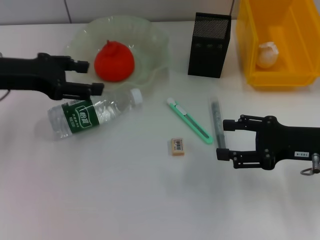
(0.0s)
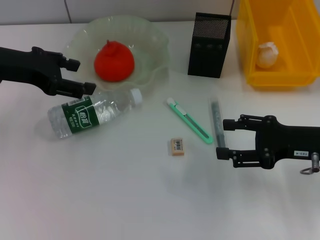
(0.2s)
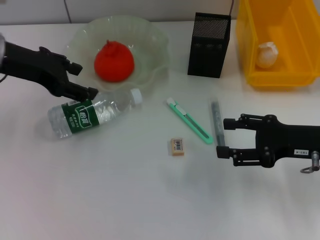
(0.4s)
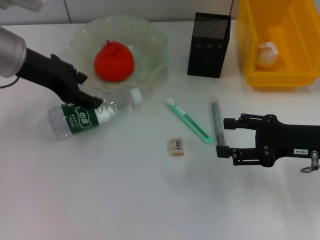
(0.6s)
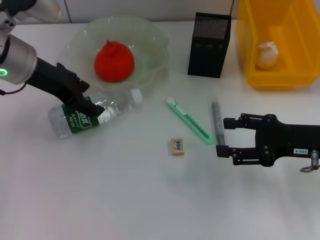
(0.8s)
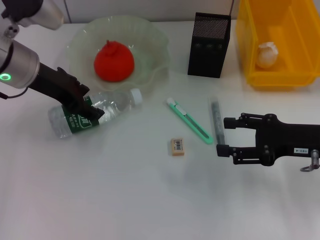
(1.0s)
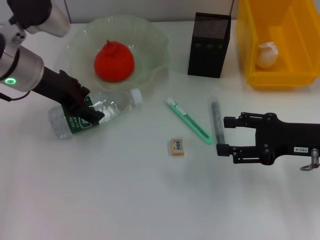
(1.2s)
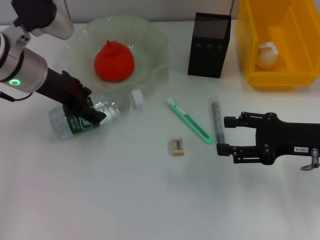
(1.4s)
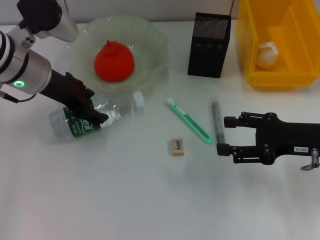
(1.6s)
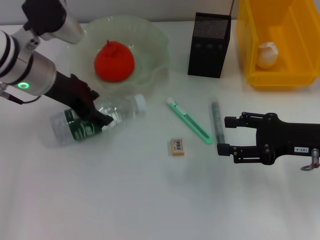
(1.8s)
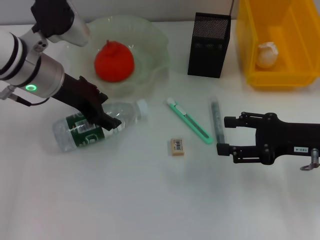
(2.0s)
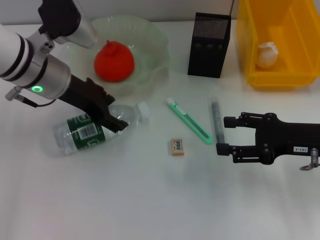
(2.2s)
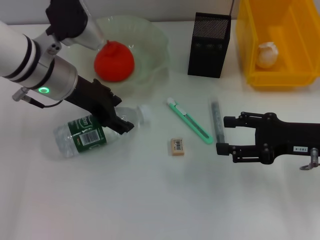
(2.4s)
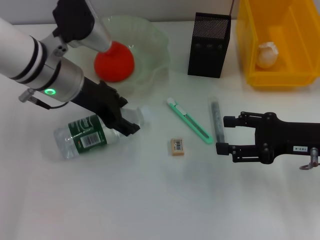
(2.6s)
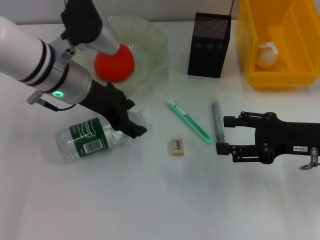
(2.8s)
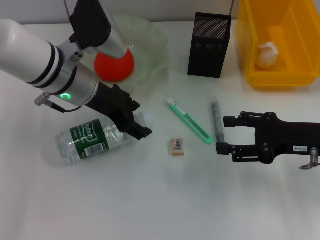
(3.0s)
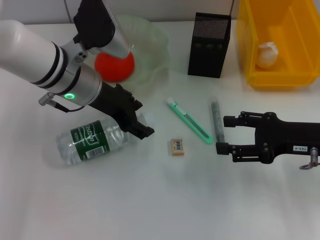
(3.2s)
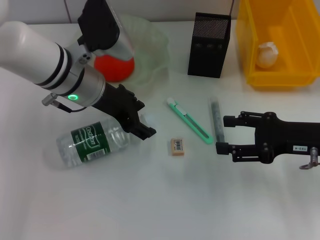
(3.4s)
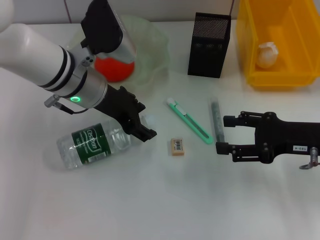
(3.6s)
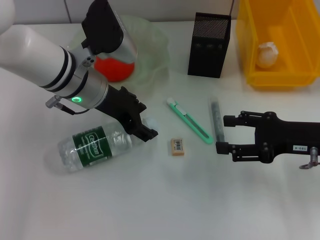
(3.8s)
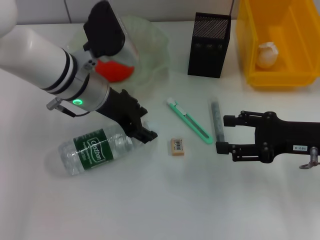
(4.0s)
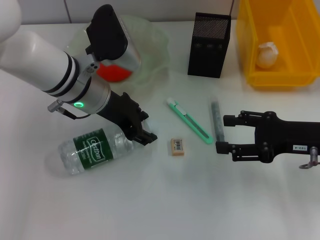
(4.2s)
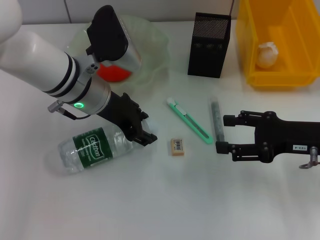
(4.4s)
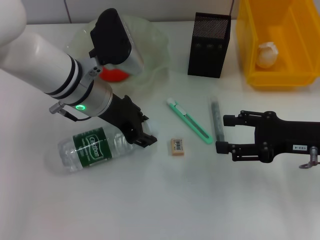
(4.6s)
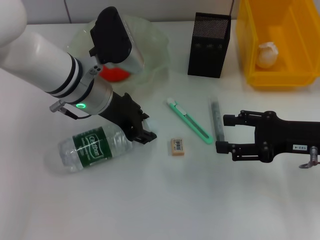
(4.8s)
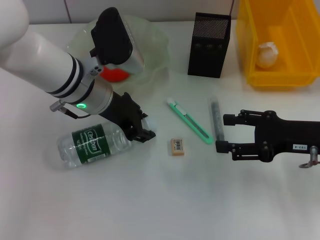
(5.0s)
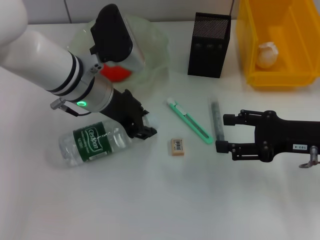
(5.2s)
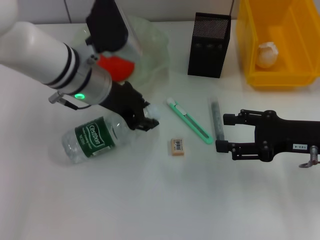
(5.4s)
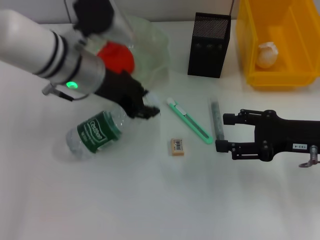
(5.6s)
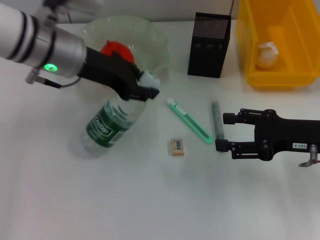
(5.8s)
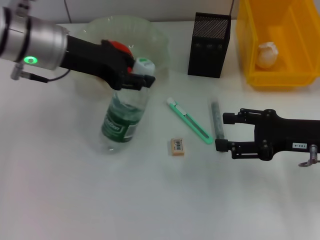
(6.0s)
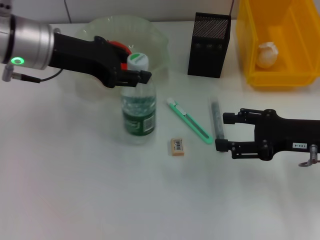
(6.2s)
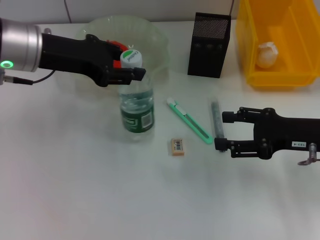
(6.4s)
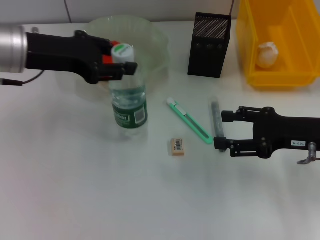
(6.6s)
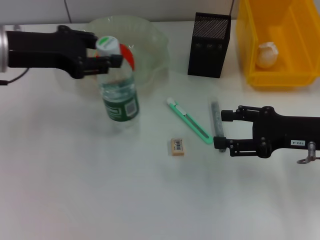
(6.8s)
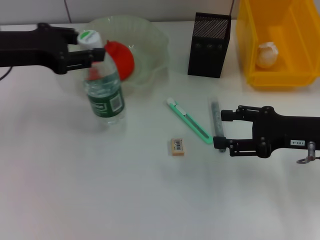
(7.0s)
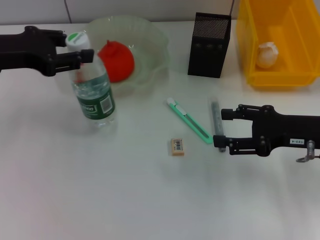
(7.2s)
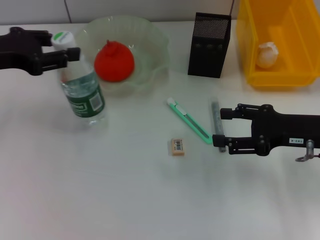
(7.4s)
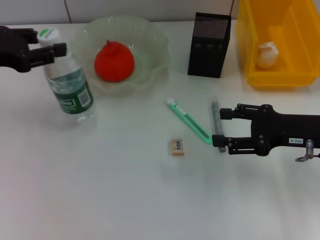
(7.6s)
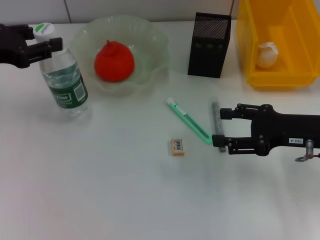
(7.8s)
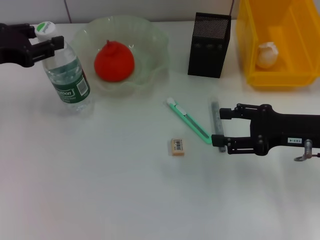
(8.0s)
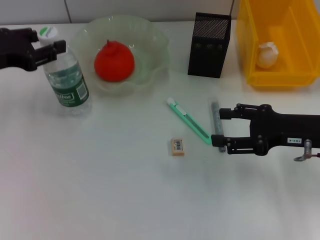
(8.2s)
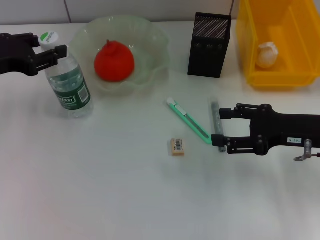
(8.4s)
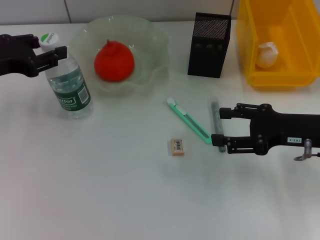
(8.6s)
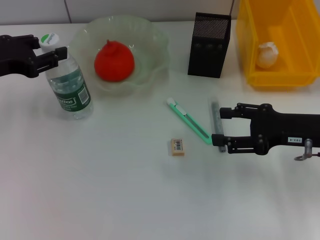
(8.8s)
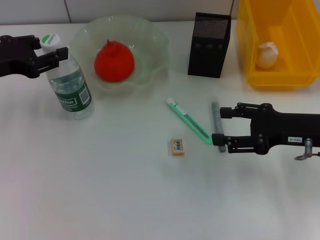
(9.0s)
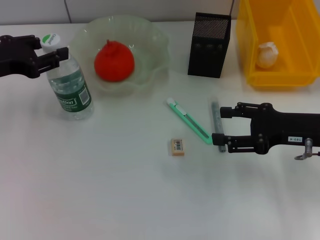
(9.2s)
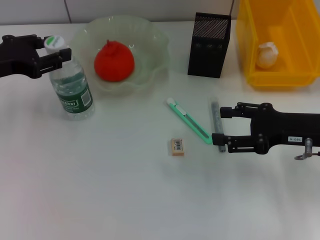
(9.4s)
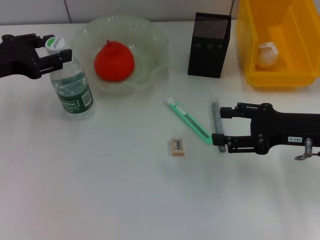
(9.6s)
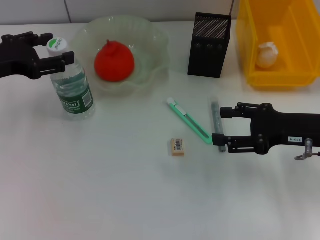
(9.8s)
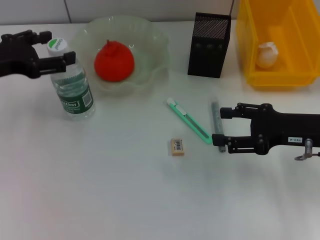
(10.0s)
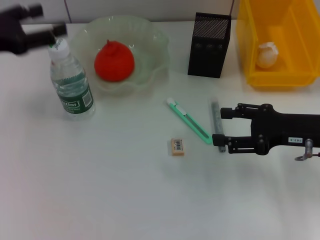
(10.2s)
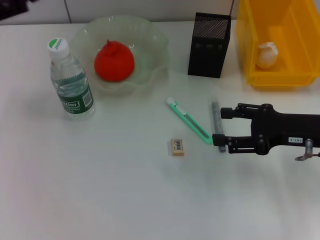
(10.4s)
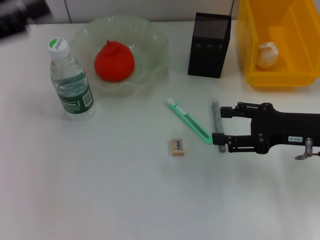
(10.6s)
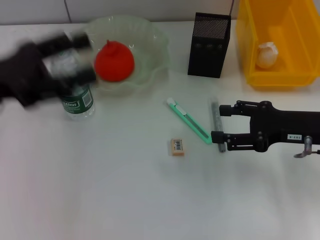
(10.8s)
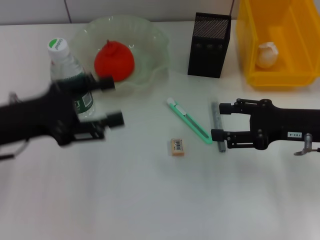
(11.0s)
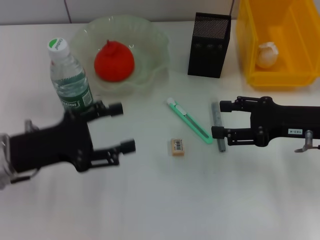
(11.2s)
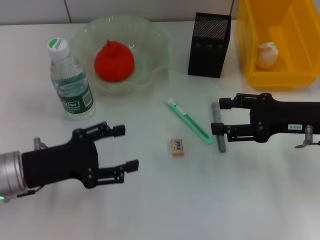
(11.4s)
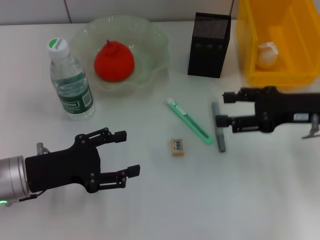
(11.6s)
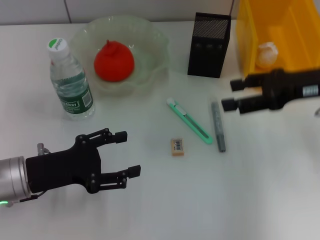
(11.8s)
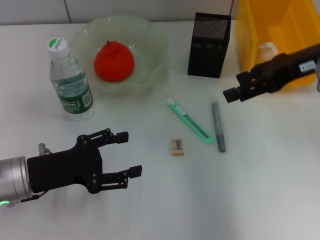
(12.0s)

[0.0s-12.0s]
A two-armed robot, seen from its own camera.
Step, 0.0s to 5.2s: Grab the water bottle with the left hand.
Step, 5.4s to 9.6s: Place the water bottle on the table with the left hand.
0.0s to 1.6s: The left gripper moves to the right, about 5 cm.
1.6s to 3.0s: The left gripper moves to the right, roughly 5 cm.
3.0s to 4.4s: The grippers move only a little.
4.4s to 6.0s: The left gripper goes about 10 cm upward and to the left.
6.0s to 7.6s: The left gripper goes some 15 cm to the left.
7.6s to 9.0s: The grippers stay close to where they were, moving slightly.
9.0s to 10.4s: The left gripper heads upward, covering about 5 cm, and opens up.
10.4s to 12.0s: The left gripper is displaced downward and to the right by approximately 20 cm. Meanwhile the right gripper shifts about 15 cm upward and forward.

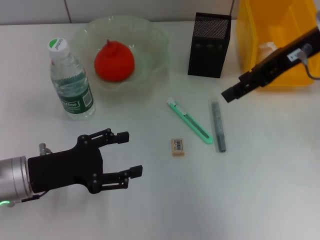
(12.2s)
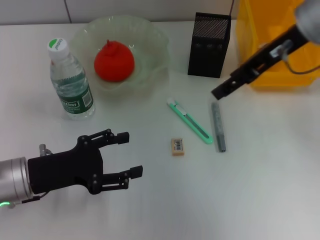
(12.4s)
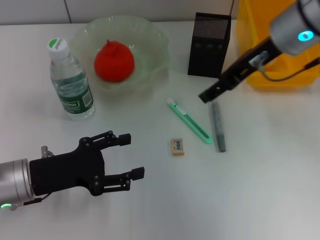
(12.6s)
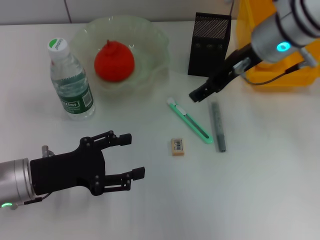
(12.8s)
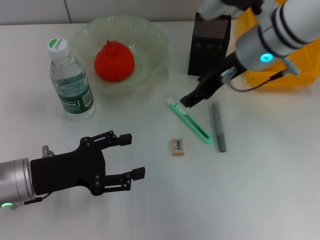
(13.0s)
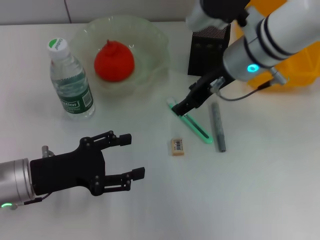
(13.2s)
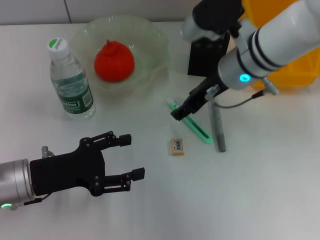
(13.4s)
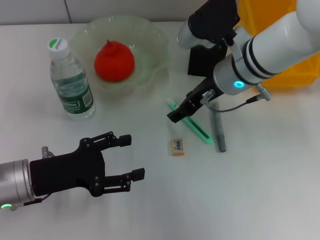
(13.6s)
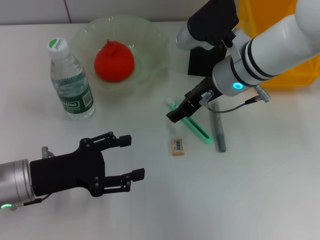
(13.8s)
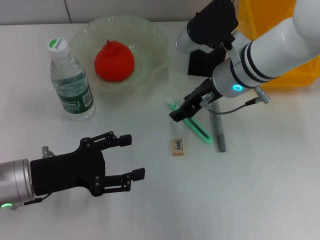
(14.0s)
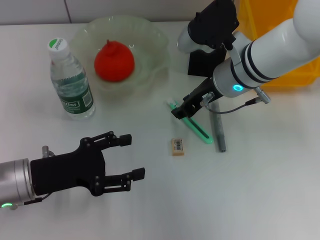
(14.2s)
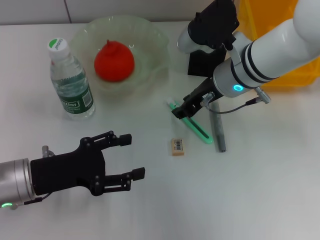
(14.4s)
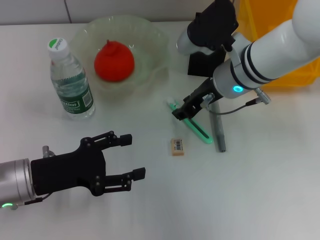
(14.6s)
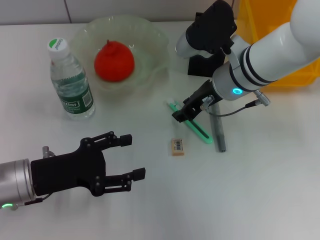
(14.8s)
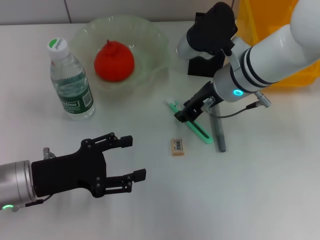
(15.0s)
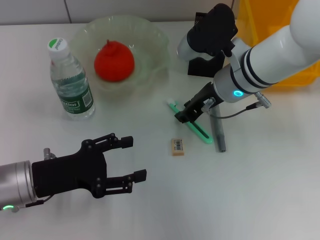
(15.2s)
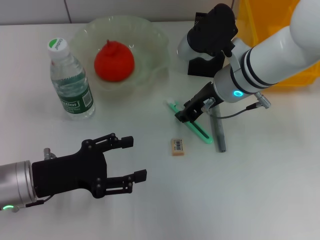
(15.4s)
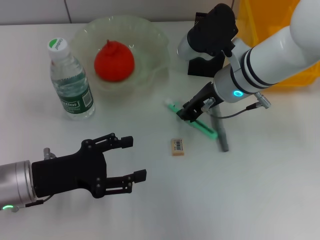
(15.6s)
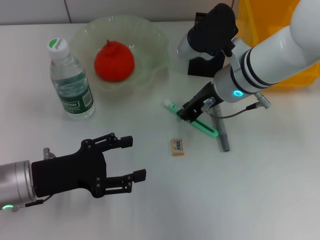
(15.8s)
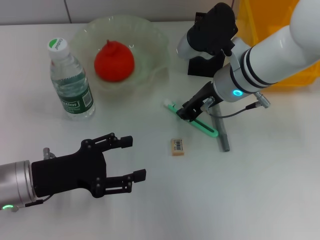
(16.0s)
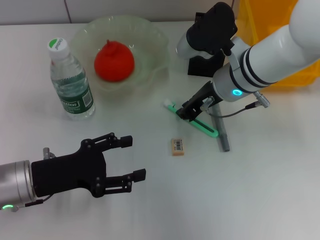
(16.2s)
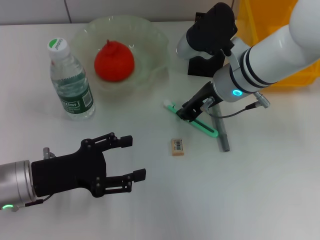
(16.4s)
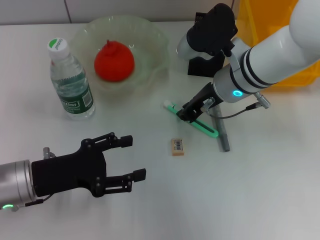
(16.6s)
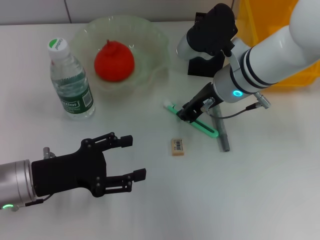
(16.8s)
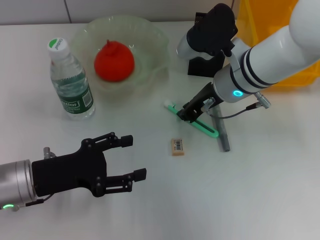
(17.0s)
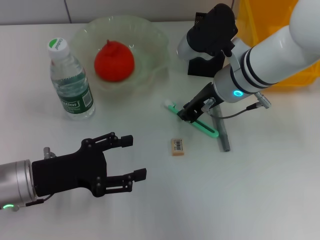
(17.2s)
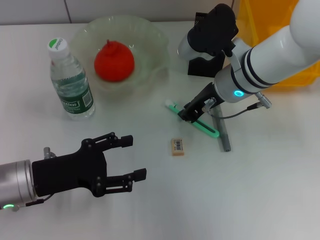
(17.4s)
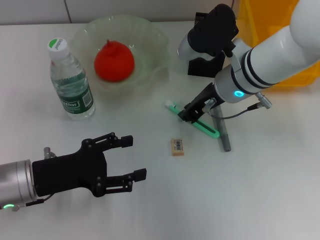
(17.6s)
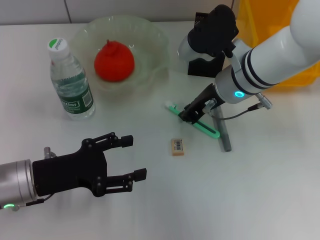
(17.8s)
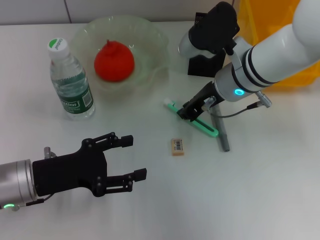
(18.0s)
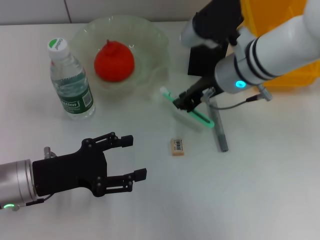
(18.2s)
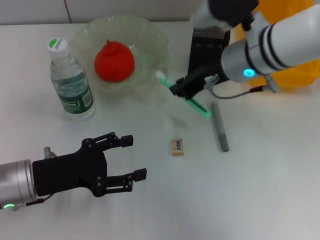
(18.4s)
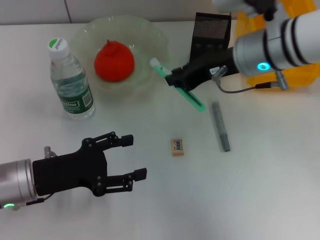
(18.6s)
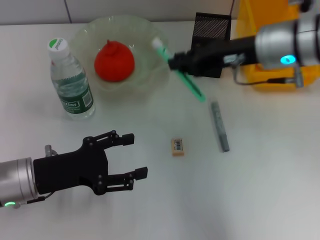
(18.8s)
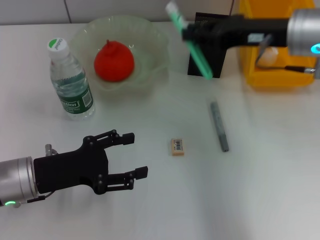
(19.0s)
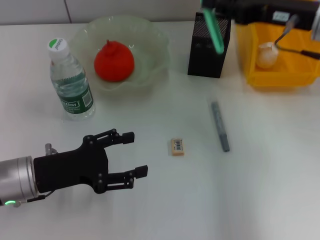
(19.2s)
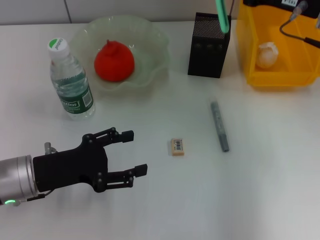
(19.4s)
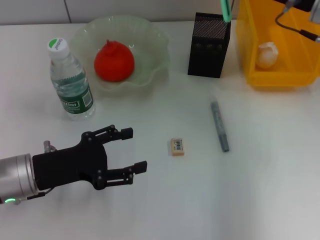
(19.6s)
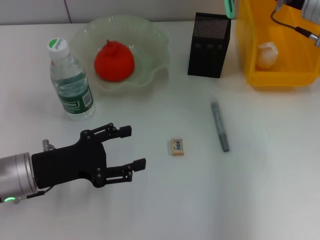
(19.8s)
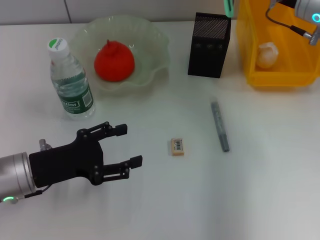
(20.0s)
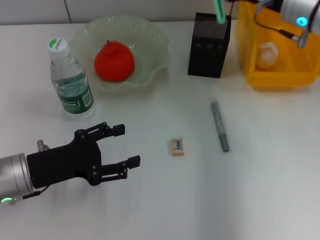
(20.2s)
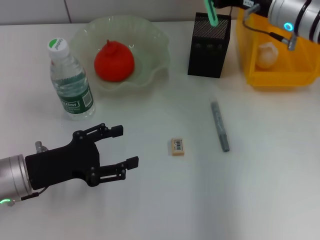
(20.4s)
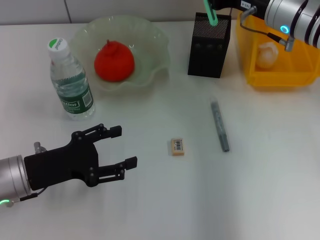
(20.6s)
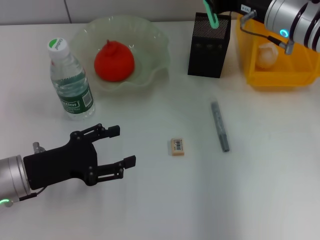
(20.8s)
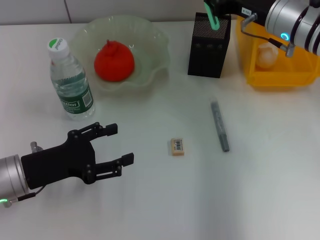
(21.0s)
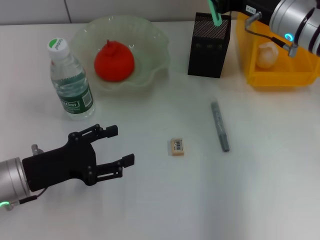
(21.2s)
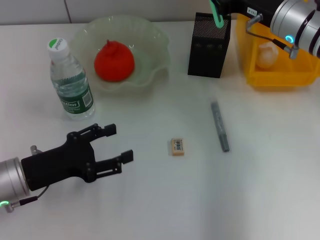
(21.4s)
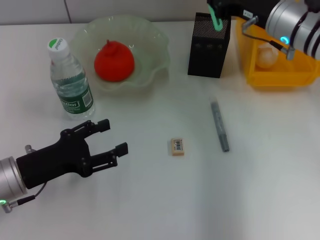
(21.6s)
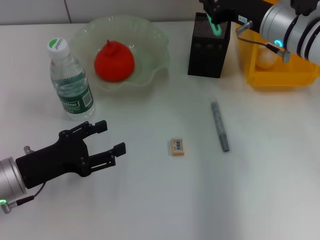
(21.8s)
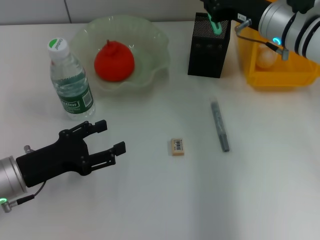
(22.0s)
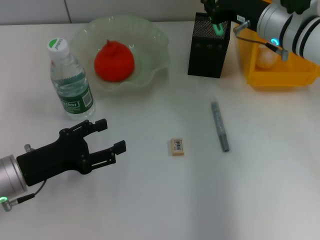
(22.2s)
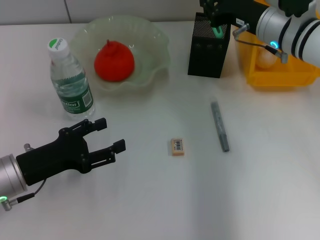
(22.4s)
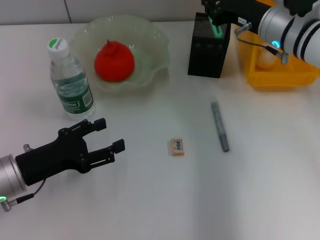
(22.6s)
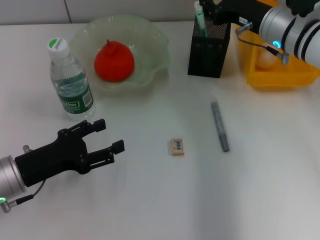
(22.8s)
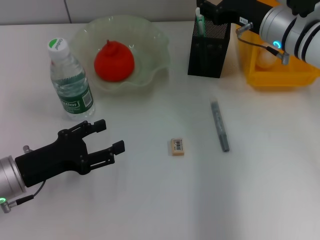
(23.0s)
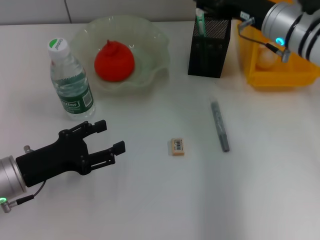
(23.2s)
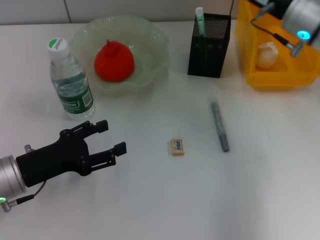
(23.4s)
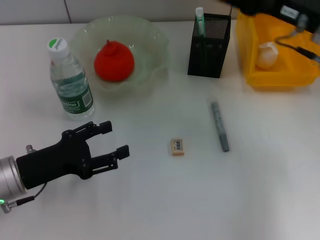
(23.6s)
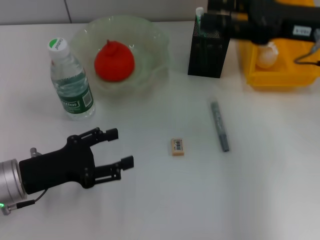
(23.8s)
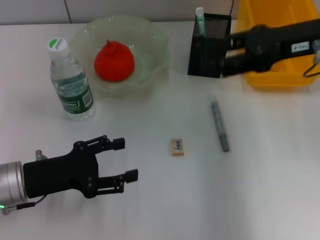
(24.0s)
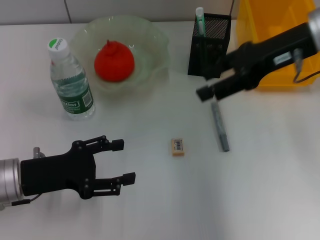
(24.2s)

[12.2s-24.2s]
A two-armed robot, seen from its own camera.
Step, 12.2s to 17.8s: Grab the blue utility knife with the right hand.
Step, 18.0s to 23.0s: Place the blue utility knife into the pen holder with the right hand.
12.2s to 13.8s: The right gripper heads downward and to the left, covering approximately 15 cm.
13.8s to 15.2s: The right gripper closes.
15.2s to 16.6s: Both grippers stay put.
16.6s to 18.2s: There are only small adjustments of the grippers.
18.2s to 19.8s: The right gripper shifts approximately 10 cm to the right.
19.8s to 21.2s: The grippers make only small movements.
21.2s to 22.6s: The grippers make only small movements.
22.6s to 24.2s: The right gripper shifts some 10 cm upward, and opens.
